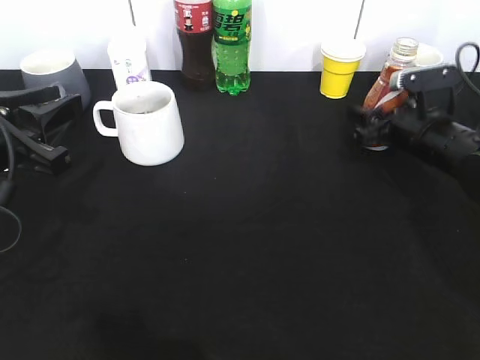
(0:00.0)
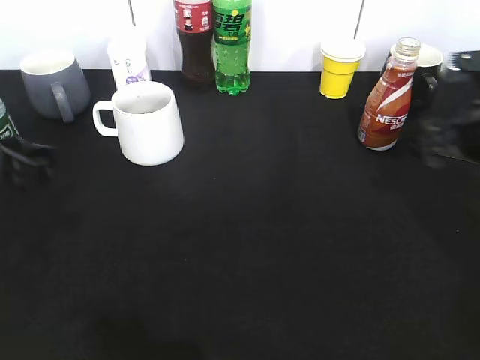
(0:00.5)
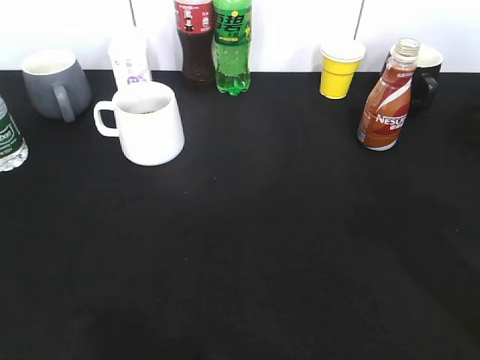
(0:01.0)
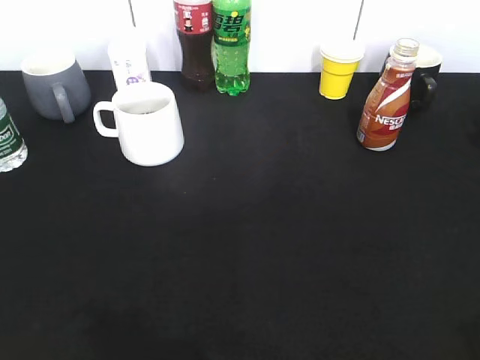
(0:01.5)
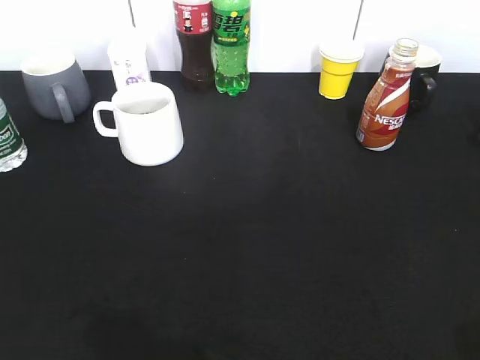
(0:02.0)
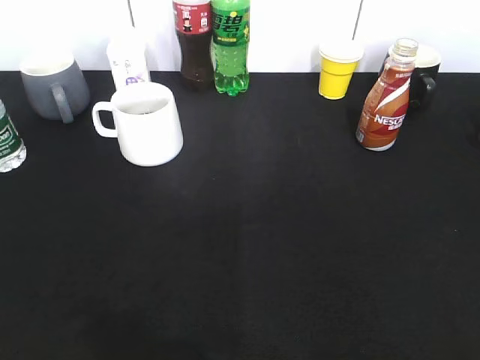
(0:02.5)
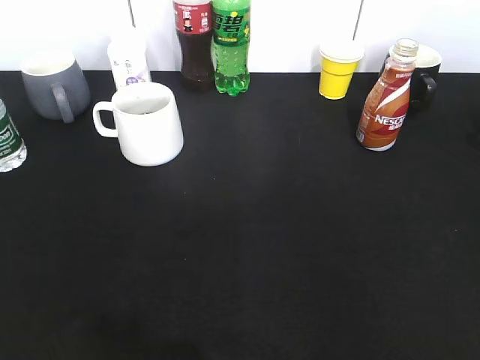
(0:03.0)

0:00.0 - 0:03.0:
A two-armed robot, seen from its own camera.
0:00.0 - 0:01.5: The left gripper goes roughly 25 cm backward, while the right gripper moves backward and upward, about 40 cm.
